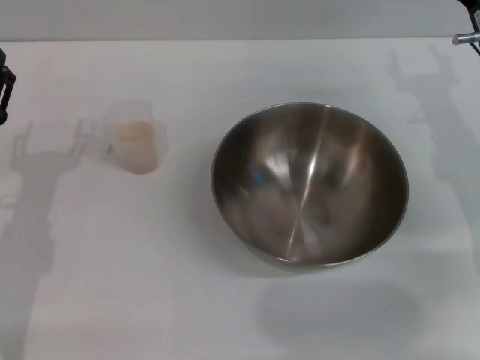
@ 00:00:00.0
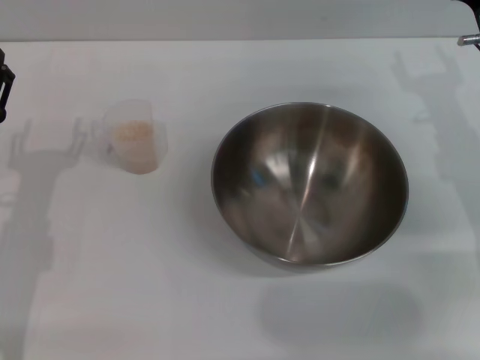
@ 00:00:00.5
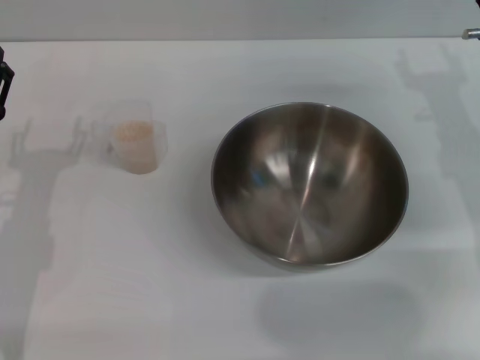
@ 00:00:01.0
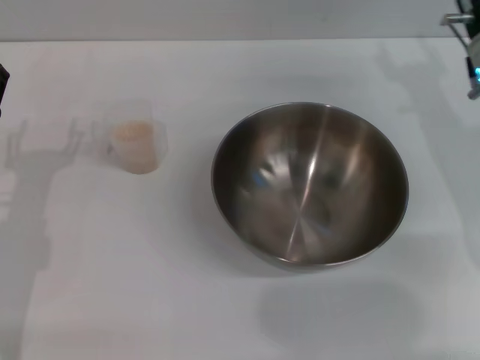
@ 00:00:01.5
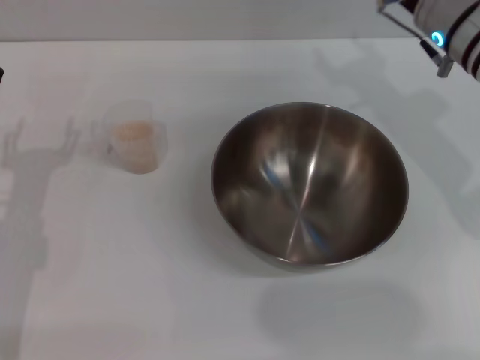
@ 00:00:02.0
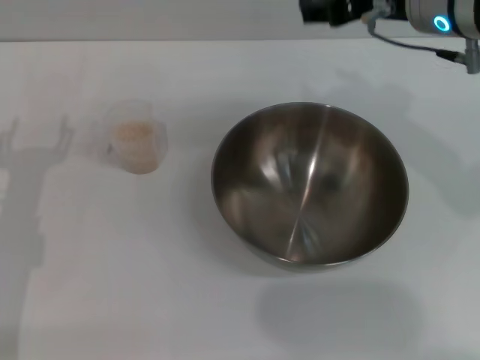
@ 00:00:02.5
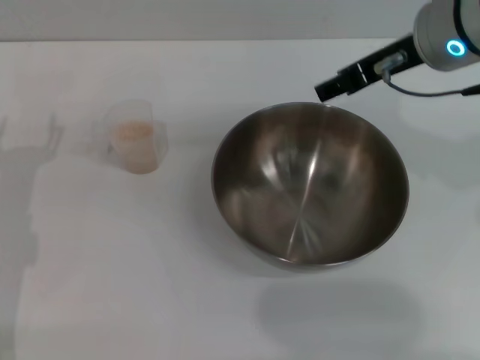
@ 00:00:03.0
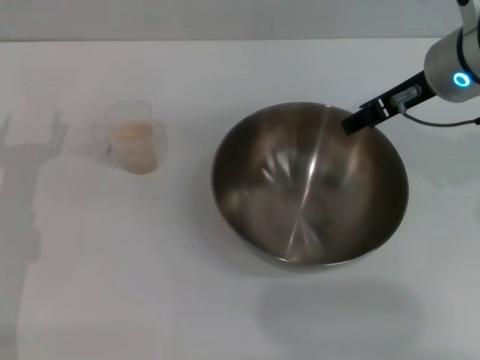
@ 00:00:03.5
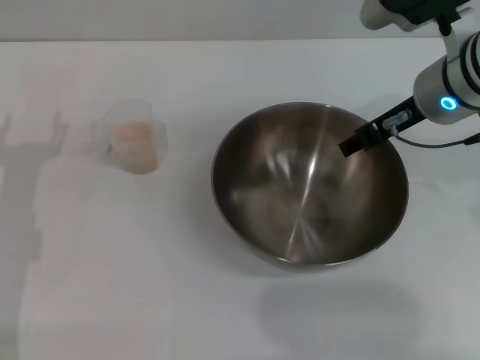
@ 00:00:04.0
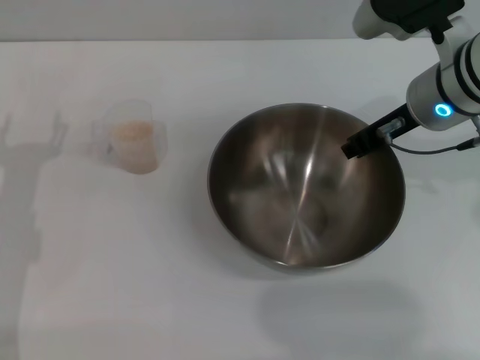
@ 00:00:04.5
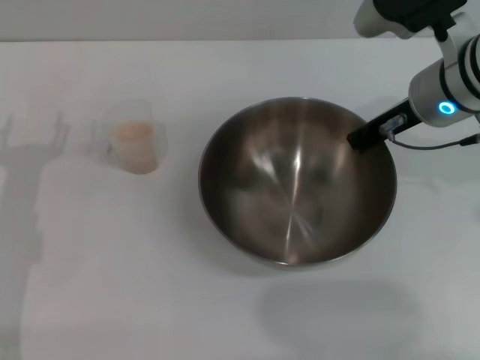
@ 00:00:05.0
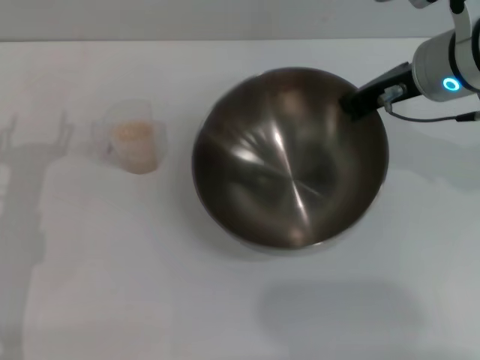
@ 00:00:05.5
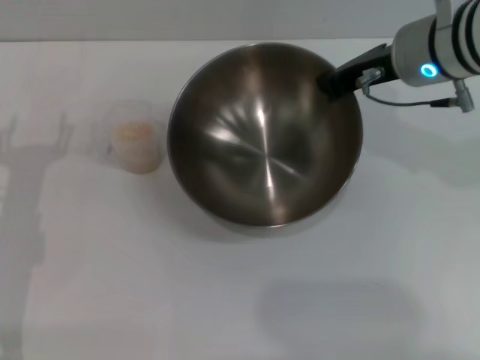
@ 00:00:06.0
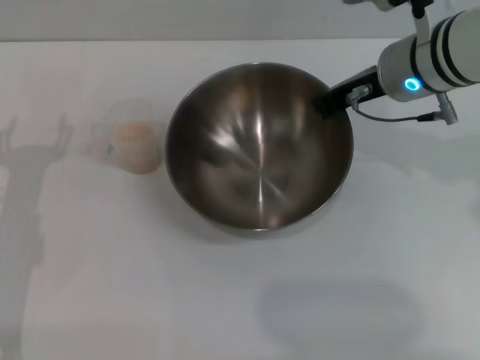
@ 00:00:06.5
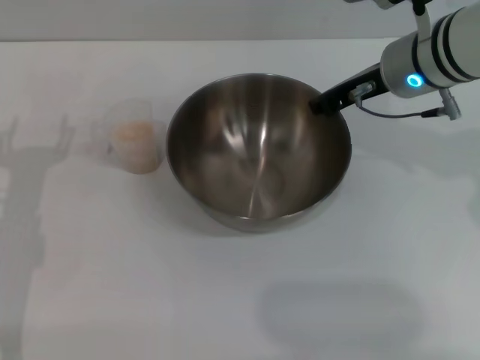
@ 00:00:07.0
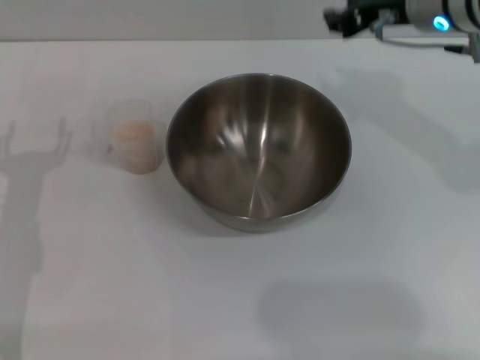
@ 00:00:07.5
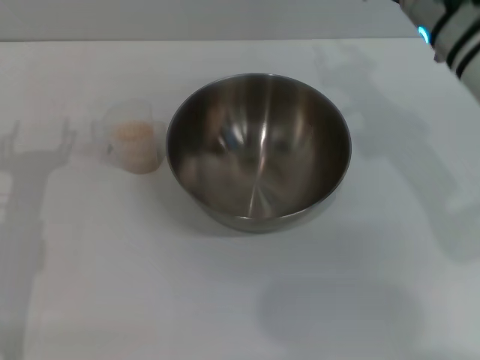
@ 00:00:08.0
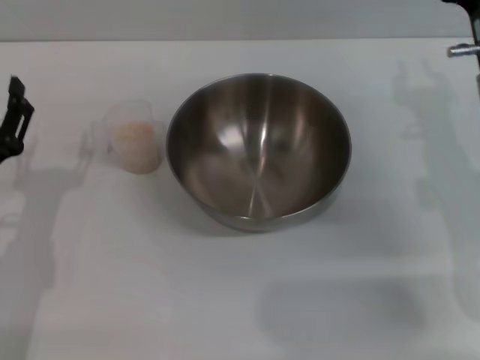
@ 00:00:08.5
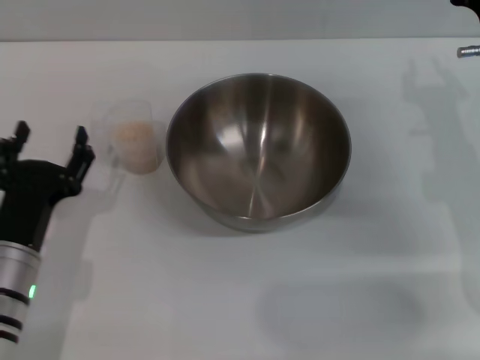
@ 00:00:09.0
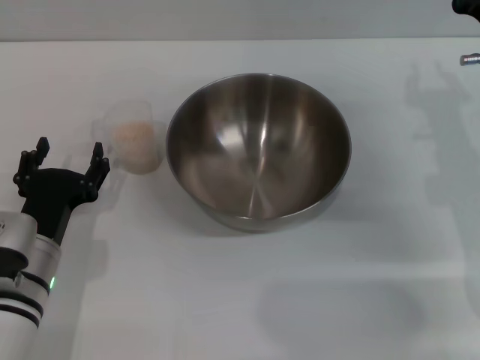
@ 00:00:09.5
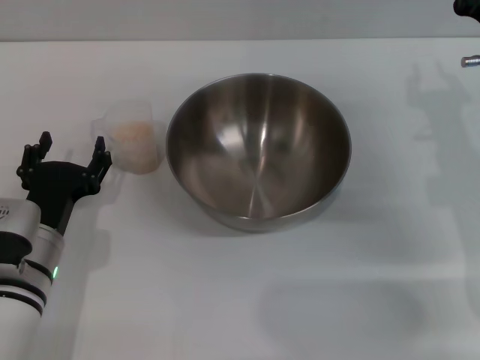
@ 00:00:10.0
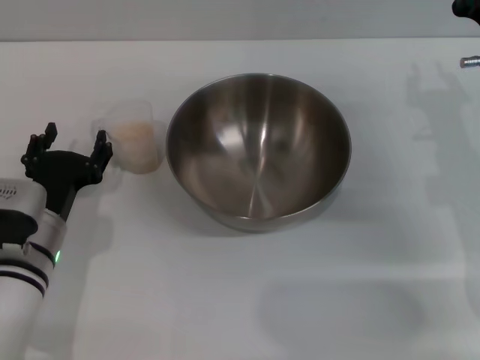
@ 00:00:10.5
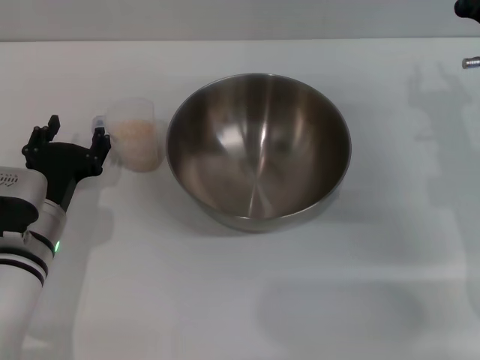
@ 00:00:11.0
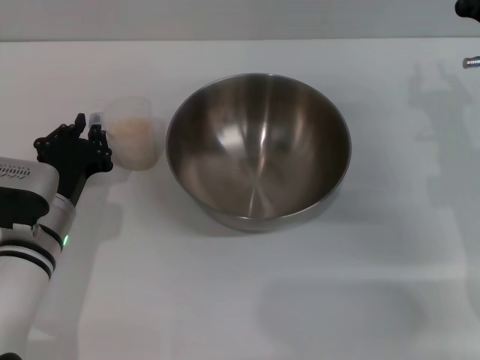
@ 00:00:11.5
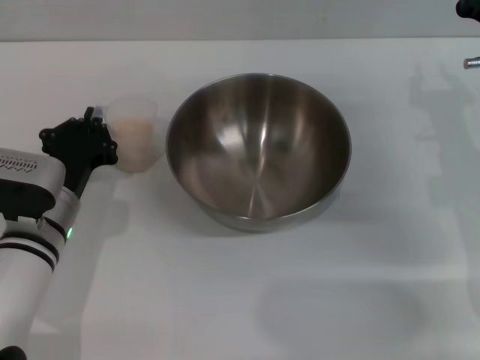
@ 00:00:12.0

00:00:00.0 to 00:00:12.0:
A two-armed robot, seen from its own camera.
Task of the whole recording: Place the bowl in the middle of the table with one hand and pour the rice from the grain cup into it with the other hand.
Step, 00:00:00.0 to 00:00:05.5: Pick up the bowl with the right gripper.
Step, 00:00:06.0 to 00:00:07.0: Place the bowl in the center of view with the right gripper.
00:00:00.0 to 00:00:02.0: The right gripper goes about 10 cm upward and to the left.
00:00:04.0 to 00:00:06.0: The right gripper closes up.
00:00:06.0 to 00:00:08.0: The right gripper opens.
00:00:08.0 to 00:00:10.0: The left gripper travels to the right and downward by approximately 10 cm. Meanwhile the right gripper goes roughly 10 cm downward and to the right.
00:00:10.0 to 00:00:12.0: The left gripper closes its fingers.

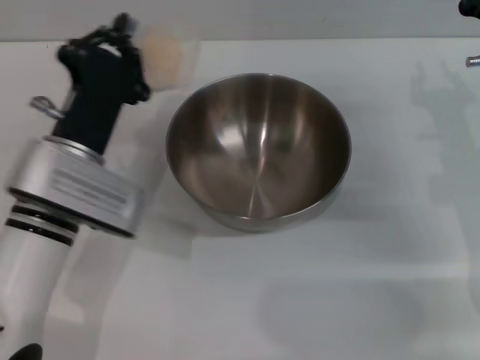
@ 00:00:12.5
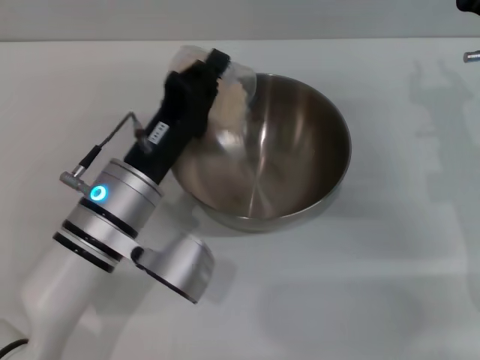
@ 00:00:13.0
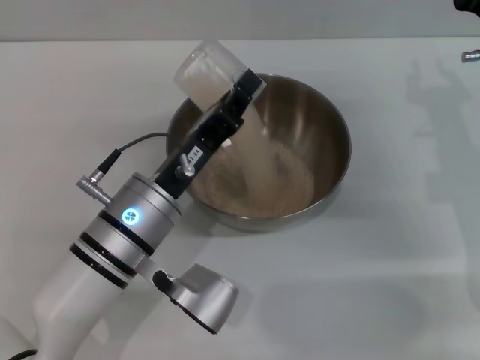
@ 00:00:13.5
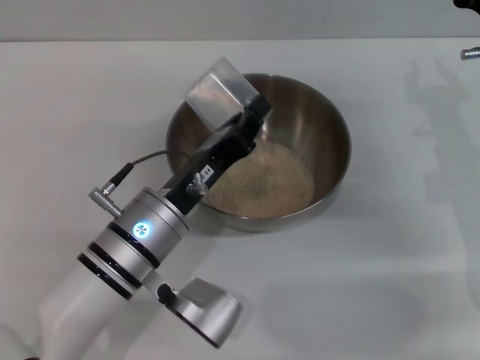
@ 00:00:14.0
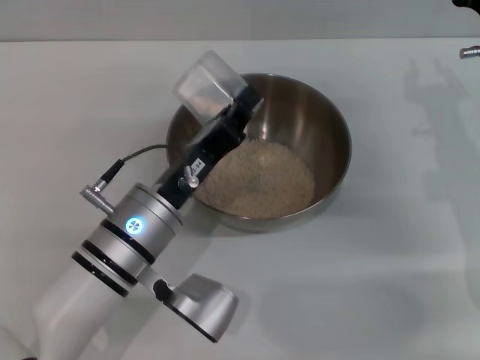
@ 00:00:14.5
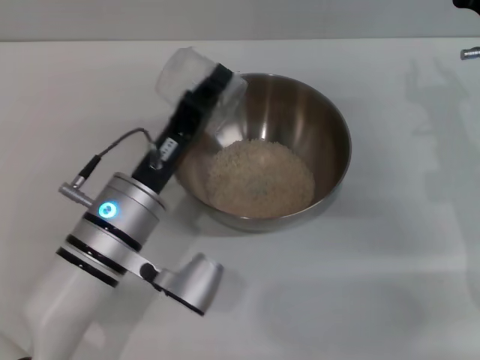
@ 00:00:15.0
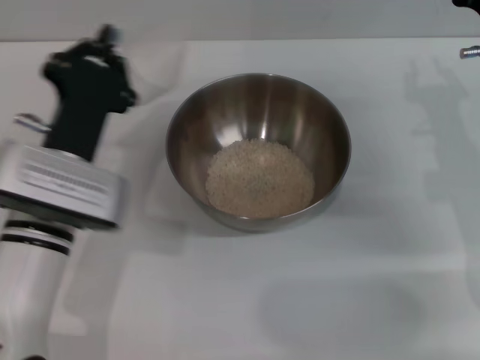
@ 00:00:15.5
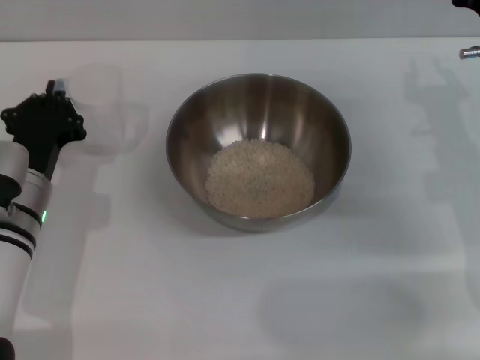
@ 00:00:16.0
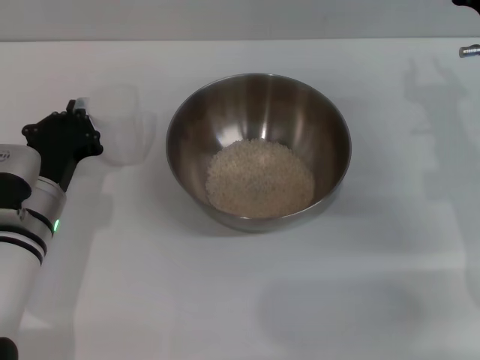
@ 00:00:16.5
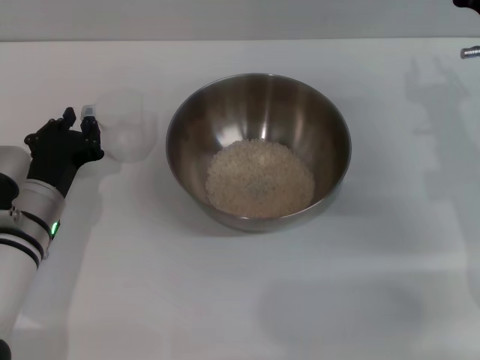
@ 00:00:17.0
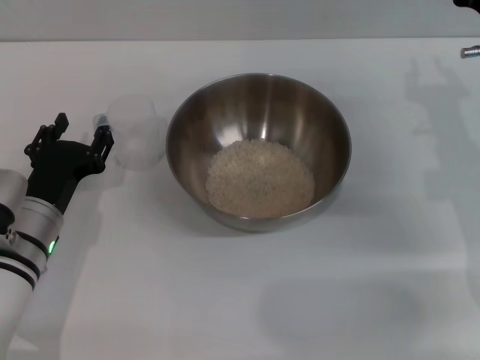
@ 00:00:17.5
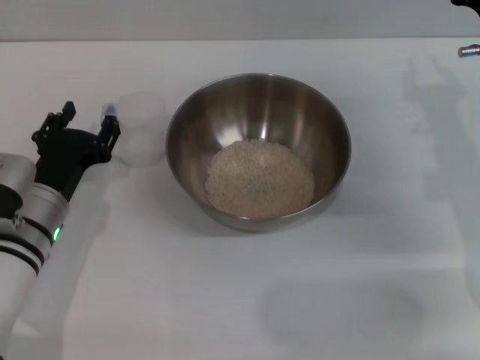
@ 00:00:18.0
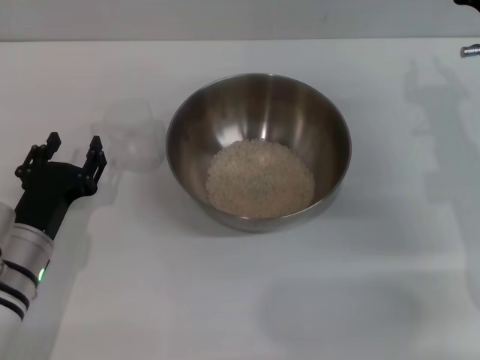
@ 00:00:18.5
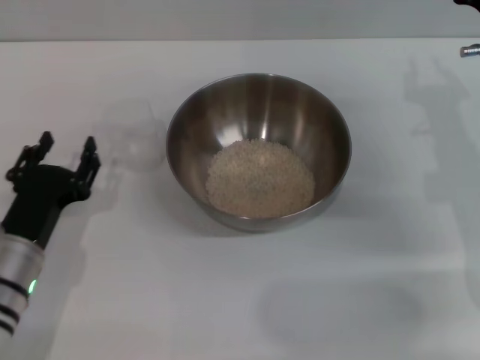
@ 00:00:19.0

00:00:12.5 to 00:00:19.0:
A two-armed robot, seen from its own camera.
Task of the whole recording: Place the bowl in the middle of the table with one hand and pour the rice from the grain cup into it with the other hand.
Step, 00:00:13.0 to 00:00:13.5: Pour the rice from the cup into the bowl with the left gripper.
Step, 00:00:14.0 to 00:00:17.0: Place the cup on the table with the left gripper.
00:00:12.5 to 00:00:14.5: The left gripper is displaced to the right by some 5 cm.
00:00:14.5 to 00:00:17.0: The left gripper moves to the left, approximately 10 cm.
00:00:17.0 to 00:00:19.0: The left gripper shifts roughly 5 cm backward, and opens its fingers.
